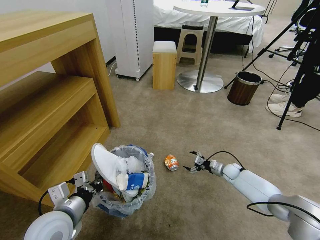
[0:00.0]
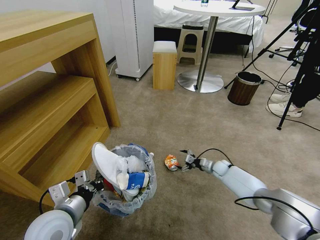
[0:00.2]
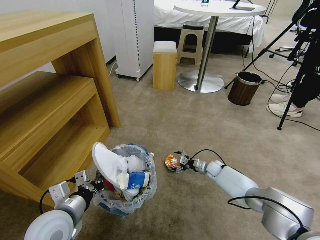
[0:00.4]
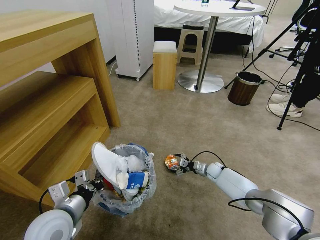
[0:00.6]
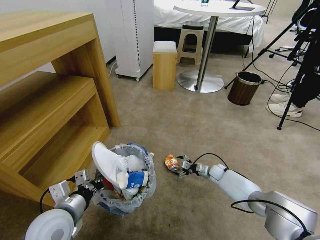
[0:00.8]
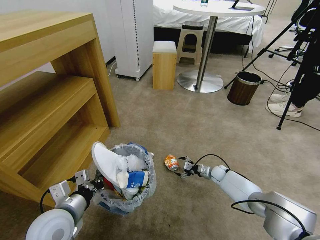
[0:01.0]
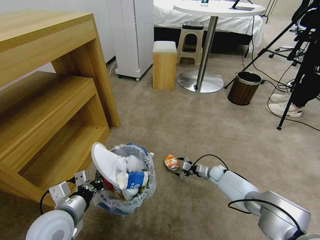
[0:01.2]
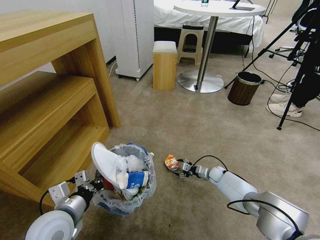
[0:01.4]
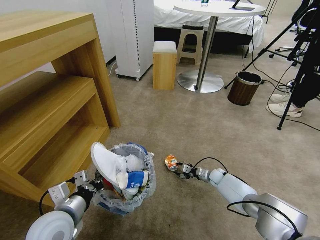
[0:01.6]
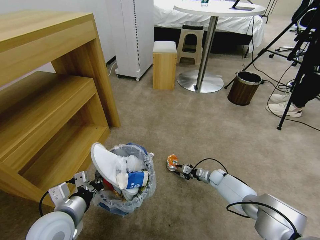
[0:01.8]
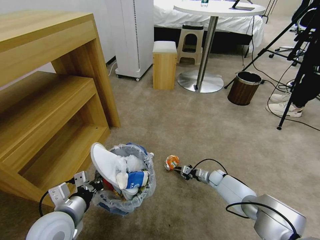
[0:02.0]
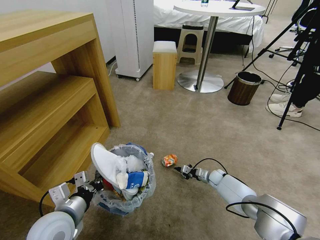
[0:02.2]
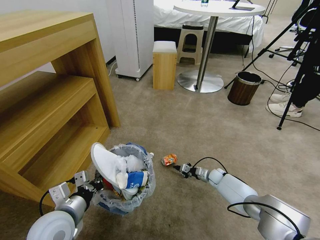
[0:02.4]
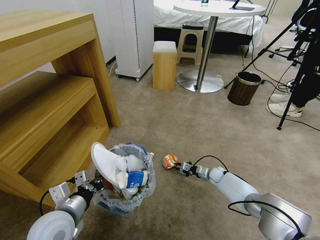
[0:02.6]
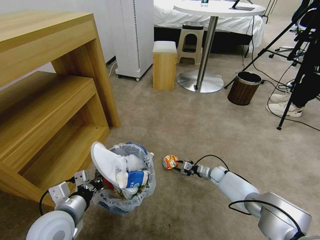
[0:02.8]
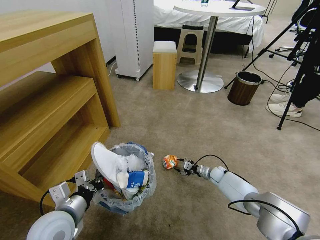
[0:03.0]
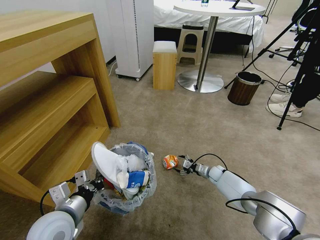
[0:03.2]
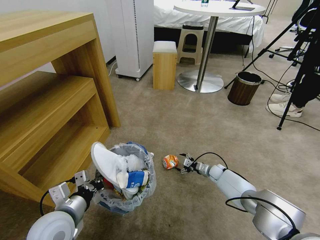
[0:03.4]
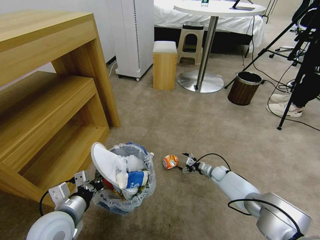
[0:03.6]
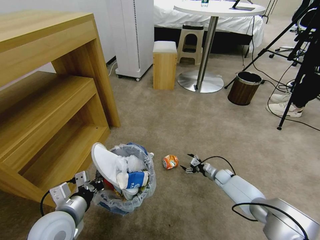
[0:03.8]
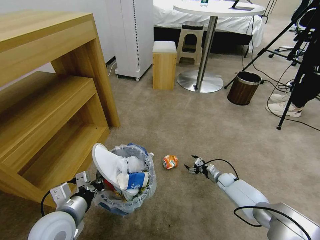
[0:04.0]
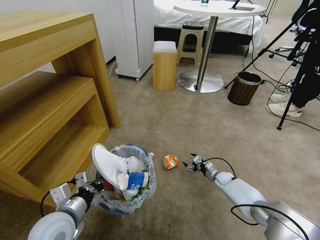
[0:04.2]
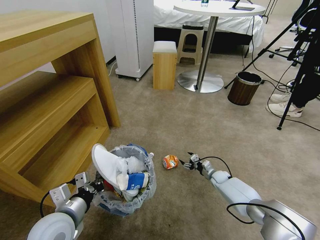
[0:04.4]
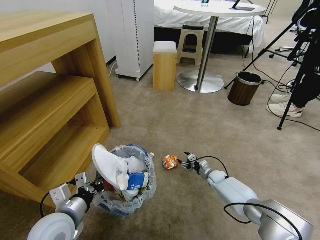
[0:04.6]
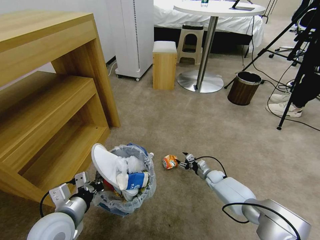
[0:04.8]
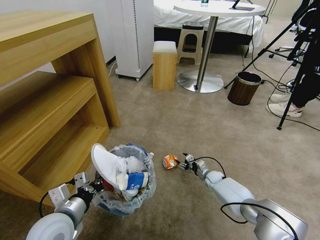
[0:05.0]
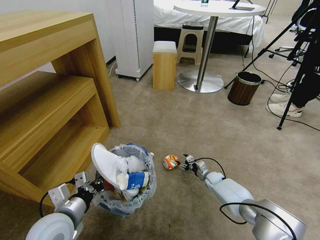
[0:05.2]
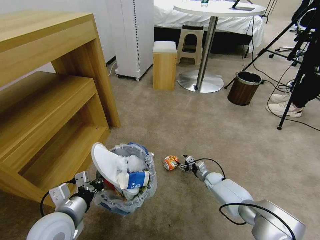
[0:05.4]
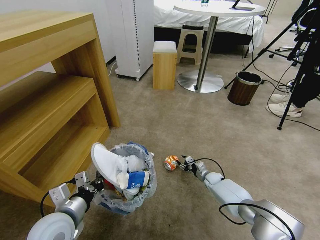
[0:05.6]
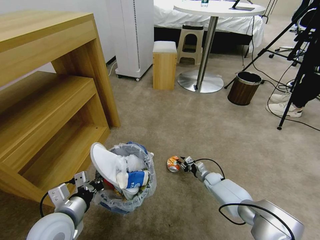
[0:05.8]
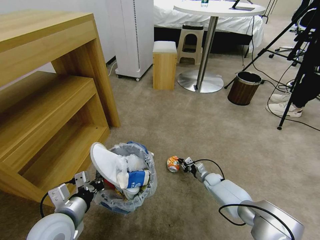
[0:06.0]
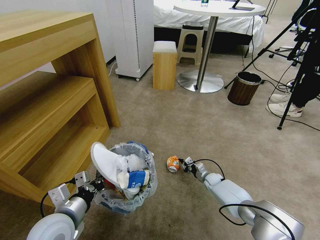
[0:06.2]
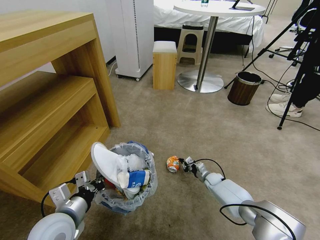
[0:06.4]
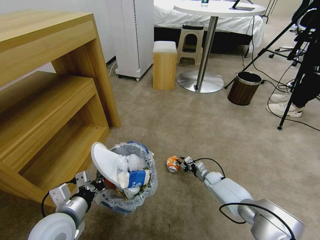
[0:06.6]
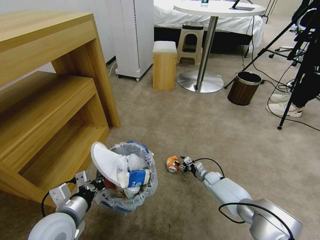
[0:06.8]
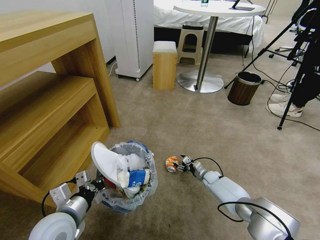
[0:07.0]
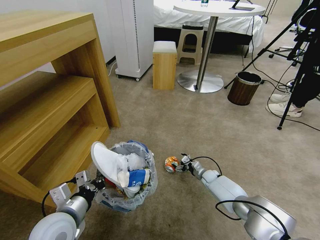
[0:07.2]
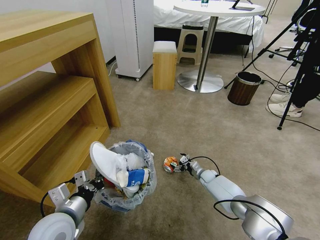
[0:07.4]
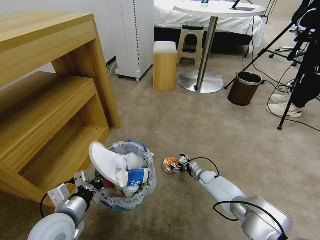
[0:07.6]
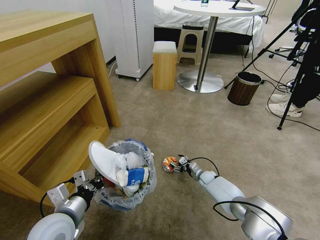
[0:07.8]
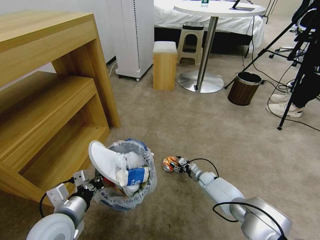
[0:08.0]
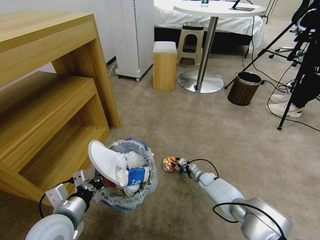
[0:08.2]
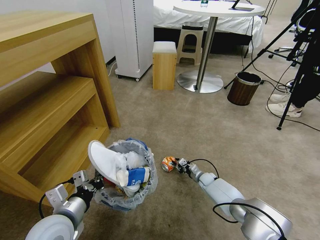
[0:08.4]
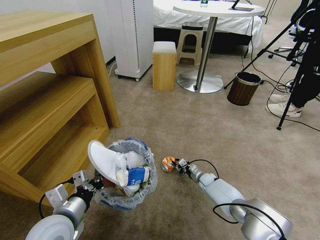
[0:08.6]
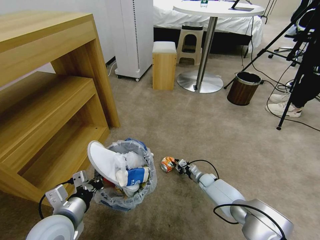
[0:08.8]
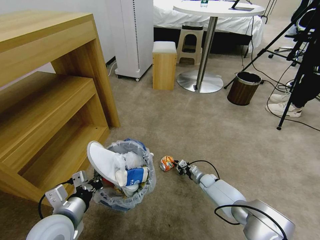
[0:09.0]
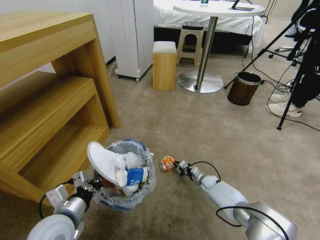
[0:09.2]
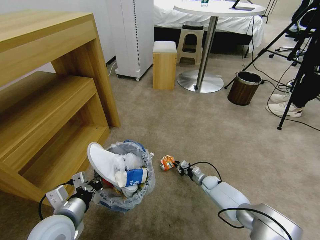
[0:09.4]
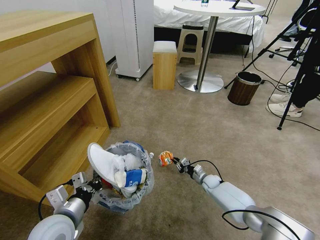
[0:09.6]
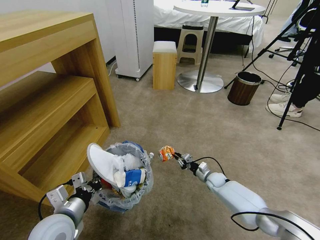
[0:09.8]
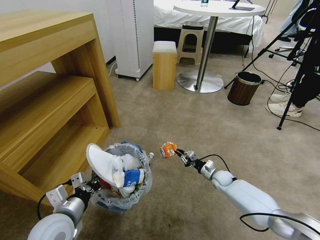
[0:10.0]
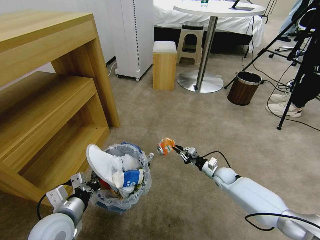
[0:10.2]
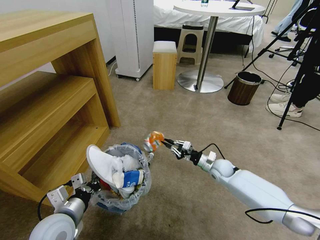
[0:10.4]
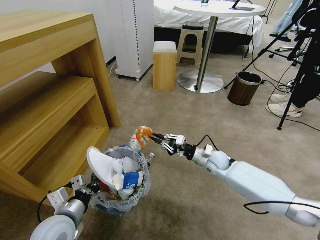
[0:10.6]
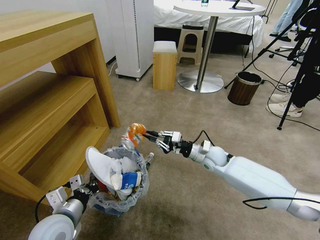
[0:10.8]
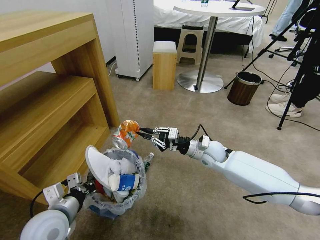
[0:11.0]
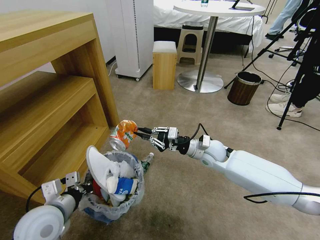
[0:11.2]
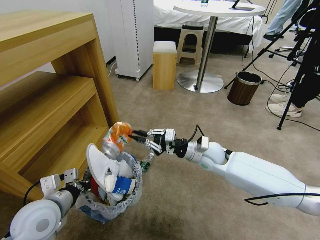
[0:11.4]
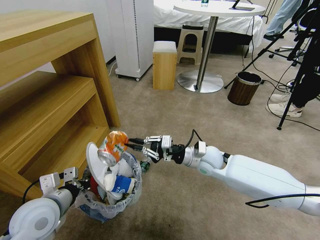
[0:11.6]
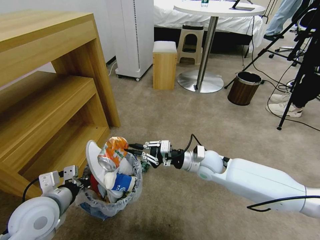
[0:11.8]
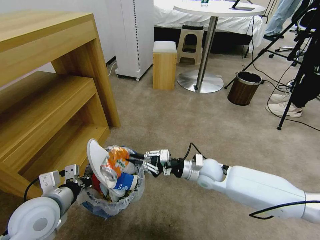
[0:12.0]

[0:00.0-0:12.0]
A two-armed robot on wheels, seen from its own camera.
Task of the whole recording: Pick up the trash bin and place the garbage on the floor into it.
0:00.0 to 0:01.6: The right gripper travels to the left by approximately 5 cm, and closes up.
0:01.6 to 0:03.0: The right gripper closes, then opens again.
0:04.4 to 0:06.0: The right gripper closes.
0:06.0 to 0:07.6: The right gripper opens up.
0:07.6 to 0:09.0: The right gripper closes its fingers.
0:09.0 to 0:10.4: The right gripper is displaced upward by approximately 15 cm.
0:10.4 to 0:12.0: The left gripper is displaced upward by approximately 5 cm; the right gripper travels to the left, upward and backward by about 15 cm.

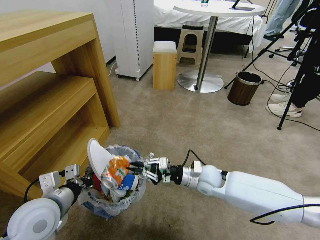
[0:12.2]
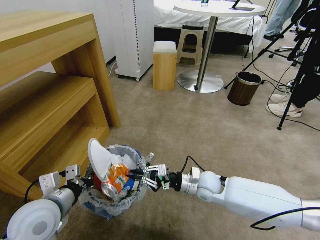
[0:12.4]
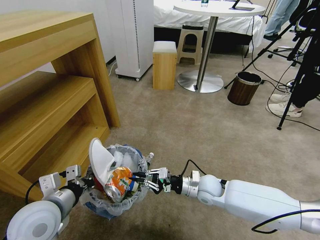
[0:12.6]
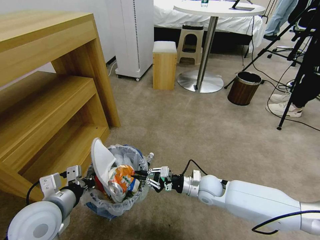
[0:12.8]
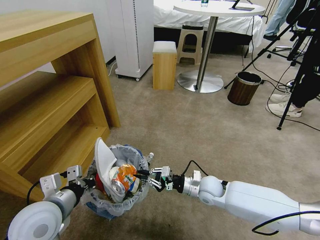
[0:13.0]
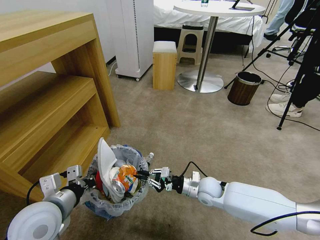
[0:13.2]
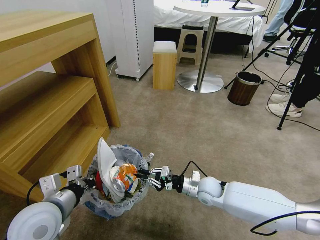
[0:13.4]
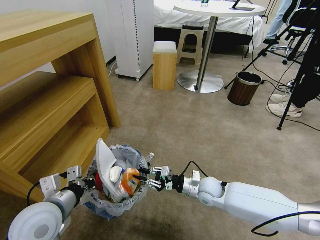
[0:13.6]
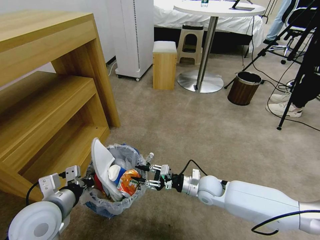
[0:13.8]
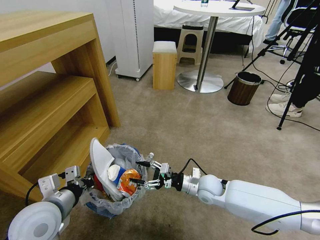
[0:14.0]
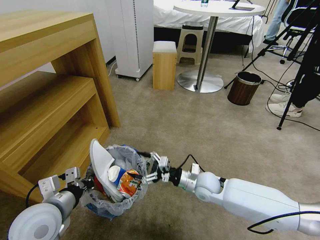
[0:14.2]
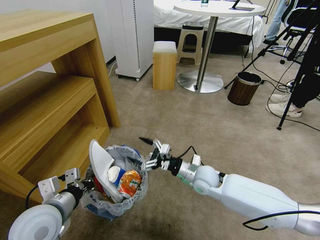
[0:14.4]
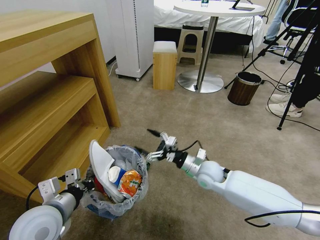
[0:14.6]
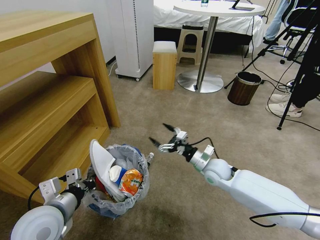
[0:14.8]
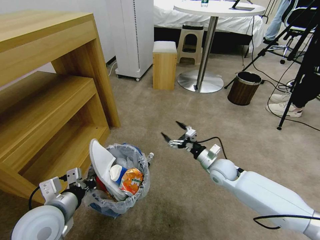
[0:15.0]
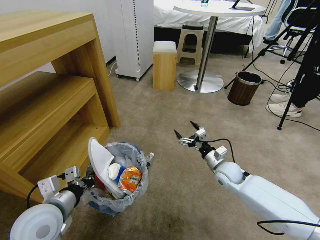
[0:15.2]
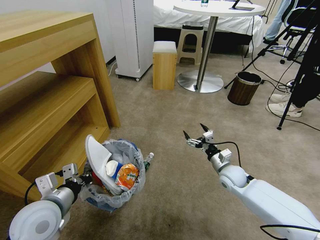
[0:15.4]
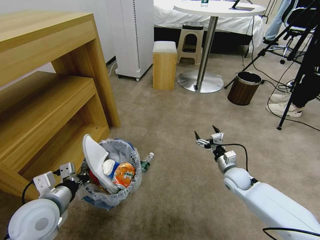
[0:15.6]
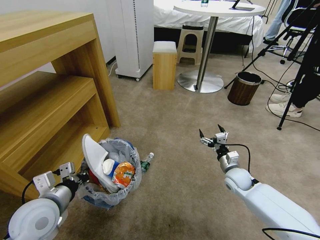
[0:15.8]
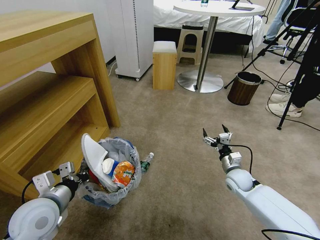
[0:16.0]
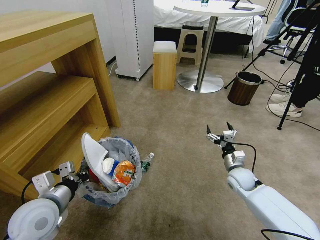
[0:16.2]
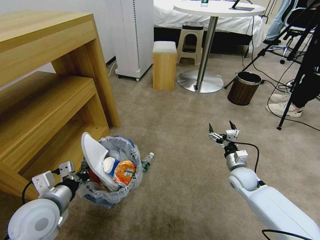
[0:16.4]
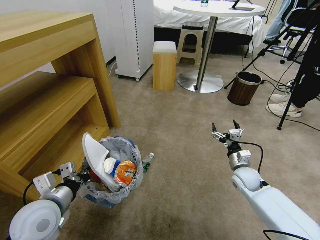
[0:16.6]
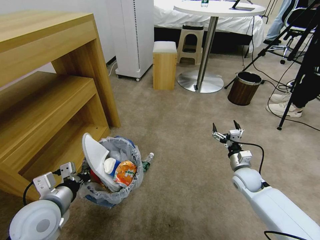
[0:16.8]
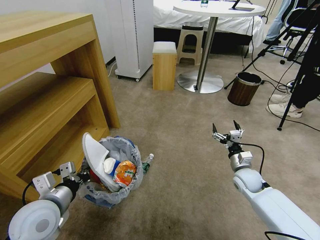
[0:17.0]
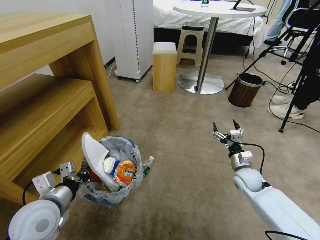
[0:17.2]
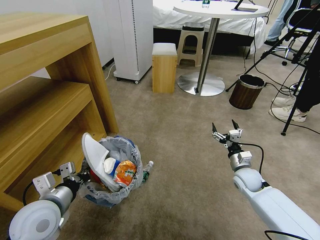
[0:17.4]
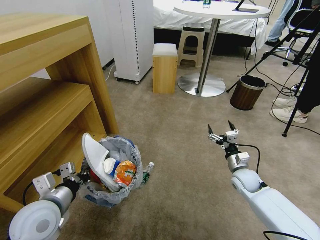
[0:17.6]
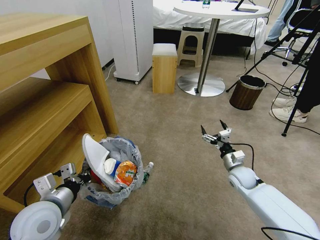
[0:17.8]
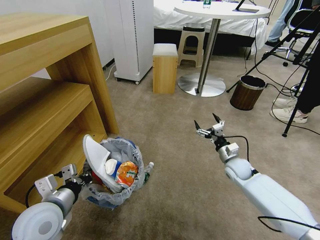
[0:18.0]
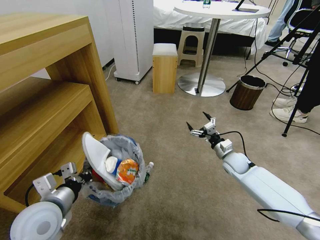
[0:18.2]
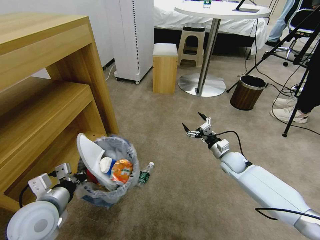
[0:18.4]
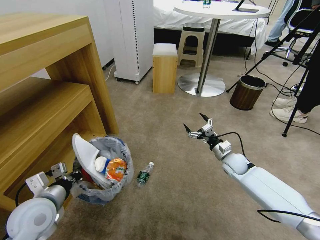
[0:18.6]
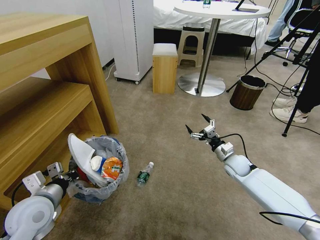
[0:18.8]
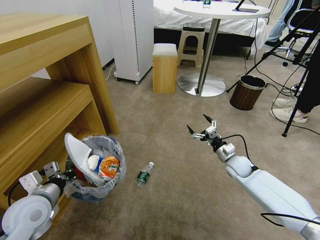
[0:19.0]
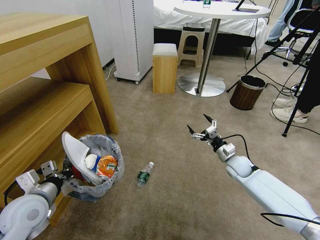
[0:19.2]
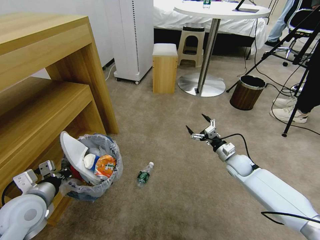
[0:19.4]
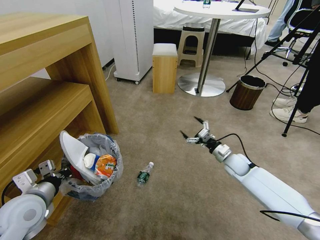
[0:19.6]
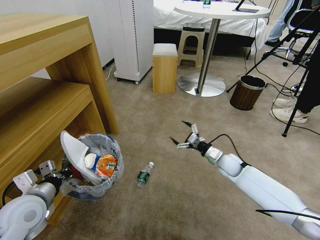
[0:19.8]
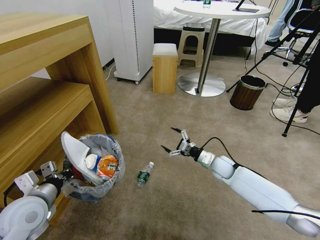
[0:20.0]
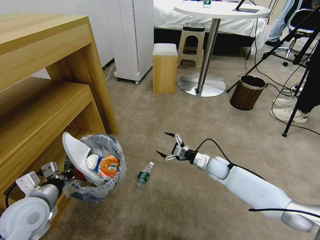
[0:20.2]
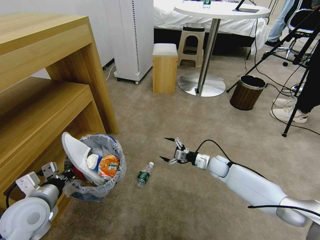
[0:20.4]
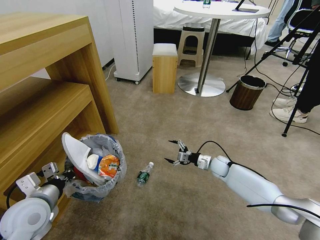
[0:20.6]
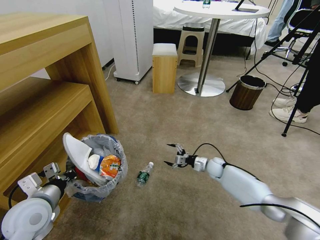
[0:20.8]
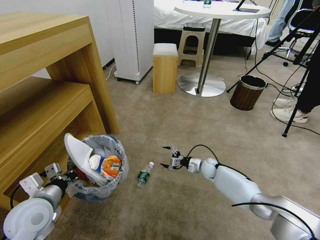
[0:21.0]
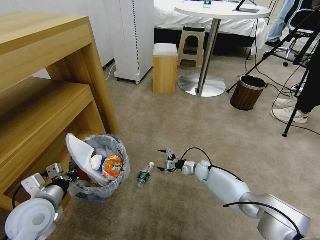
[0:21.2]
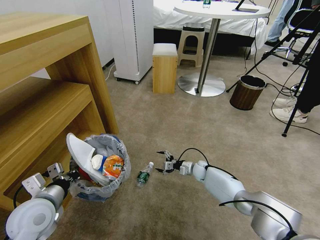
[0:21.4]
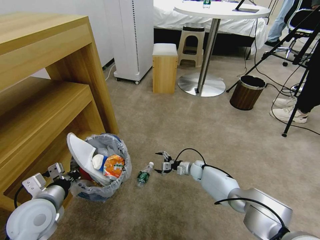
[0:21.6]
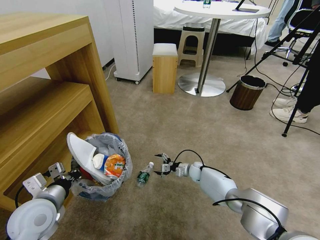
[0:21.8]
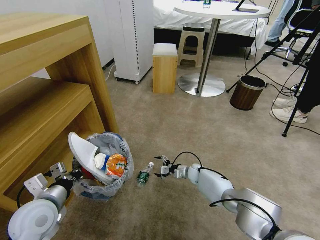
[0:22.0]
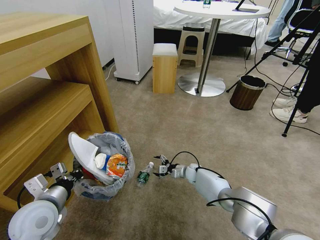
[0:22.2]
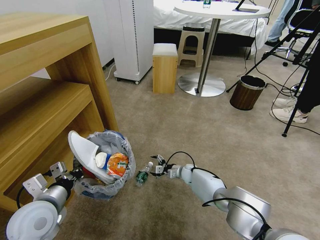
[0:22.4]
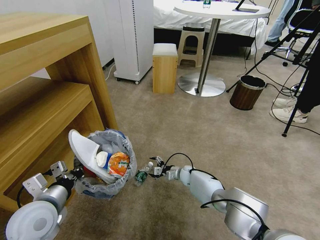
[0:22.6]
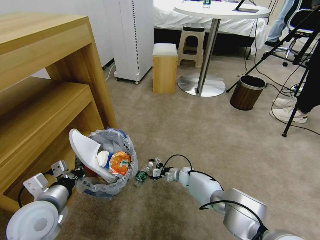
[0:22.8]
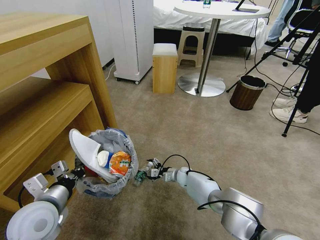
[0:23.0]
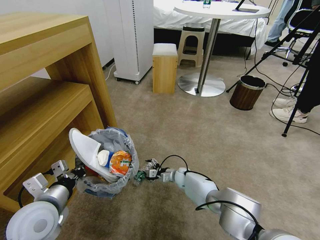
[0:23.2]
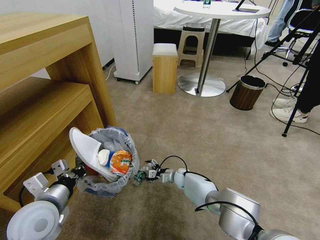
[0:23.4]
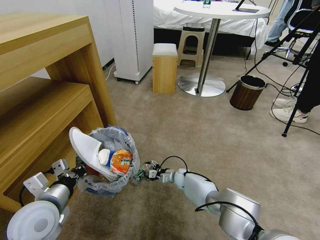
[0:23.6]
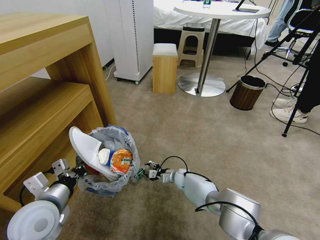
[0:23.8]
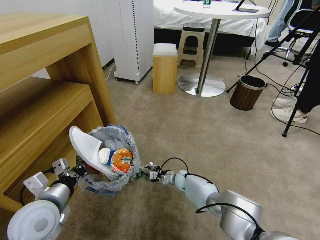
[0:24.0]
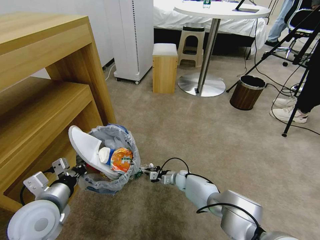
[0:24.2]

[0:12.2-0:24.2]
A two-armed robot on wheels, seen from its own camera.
Task of the whole recording: Pick up the trash bin and place the garbage on the floor into it.
0:12.2 to 0:13.8: The right gripper ends up approximately 5 cm from where it was, and opens up.
0:13.8 to 0:15.2: The right gripper goes roughly 10 cm to the right, and opens up.
0:15.2 to 0:16.6: The right gripper travels to the right by approximately 5 cm.
0:16.6 to 0:18.2: The right gripper shifts about 5 cm forward.
0:18.2 to 0:19.8: The left gripper goes roughly 5 cm to the left.
0:19.8 to 0:21.2: The right gripper moves downward and to the left, some 15 cm.
0:21.2 to 0:22.6: The right gripper goes some 5 cm to the left.
0:22.6 to 0:24.2: The right gripper closes.
